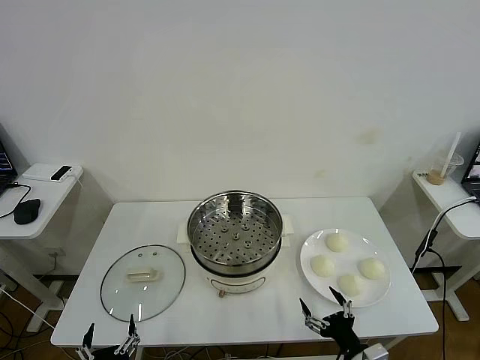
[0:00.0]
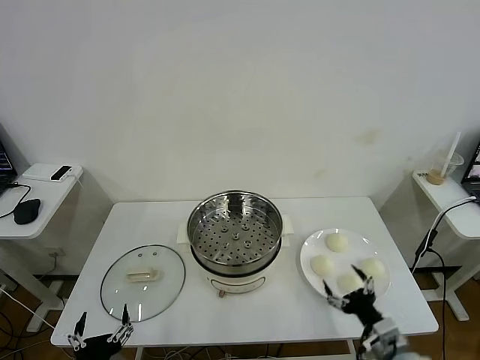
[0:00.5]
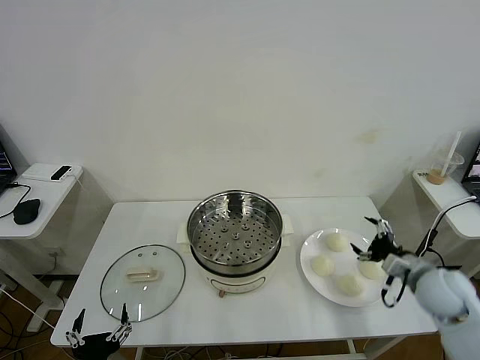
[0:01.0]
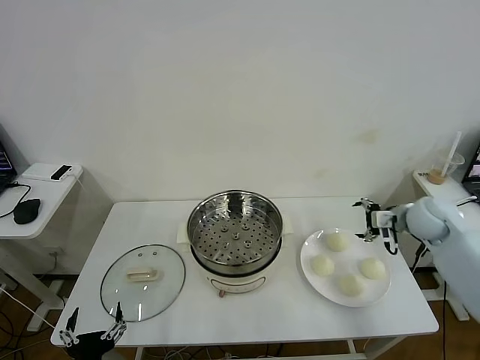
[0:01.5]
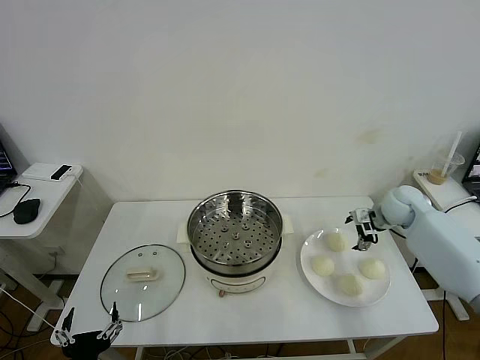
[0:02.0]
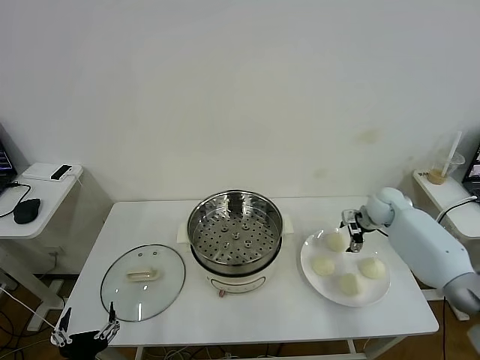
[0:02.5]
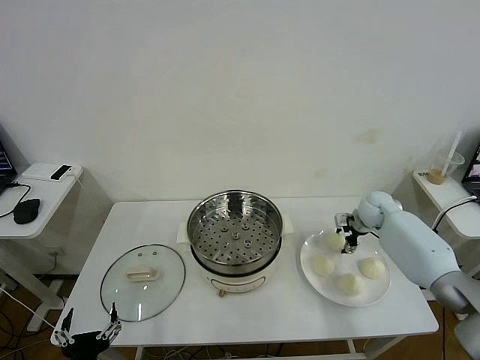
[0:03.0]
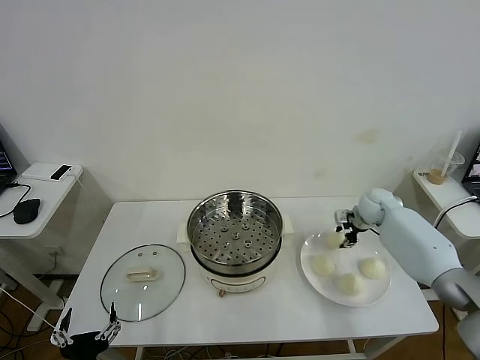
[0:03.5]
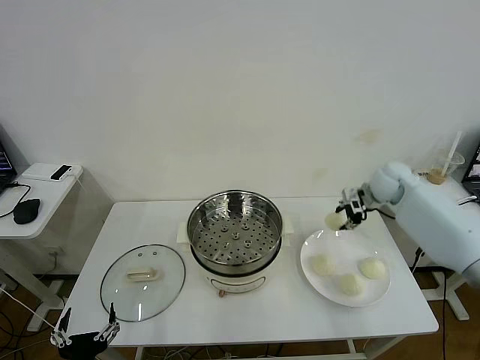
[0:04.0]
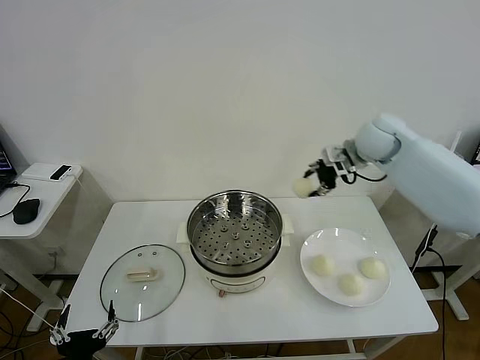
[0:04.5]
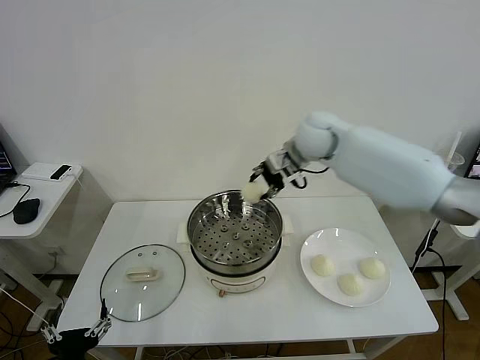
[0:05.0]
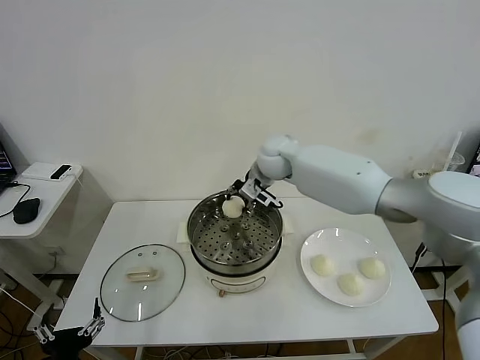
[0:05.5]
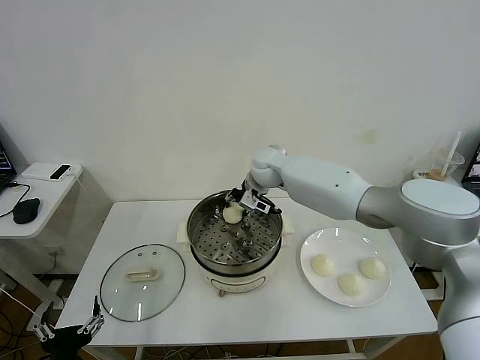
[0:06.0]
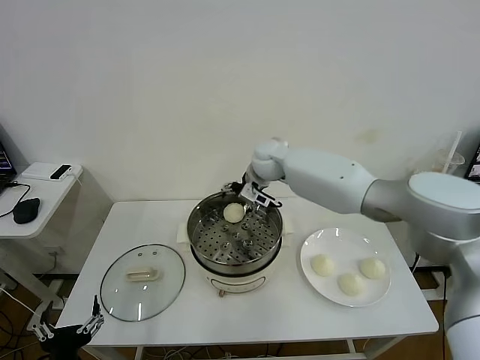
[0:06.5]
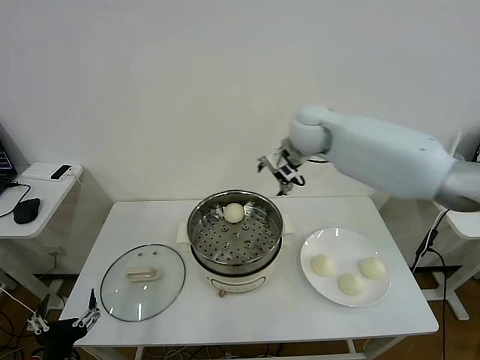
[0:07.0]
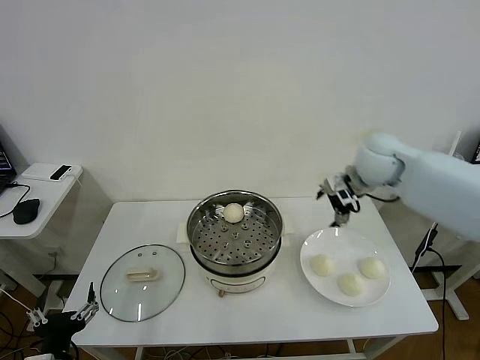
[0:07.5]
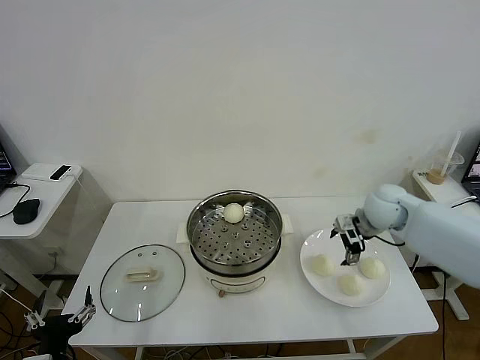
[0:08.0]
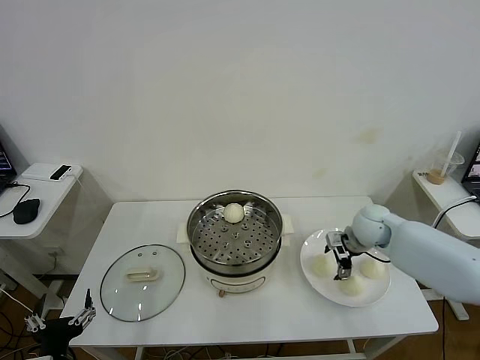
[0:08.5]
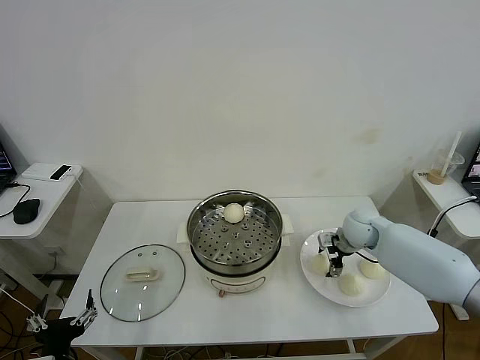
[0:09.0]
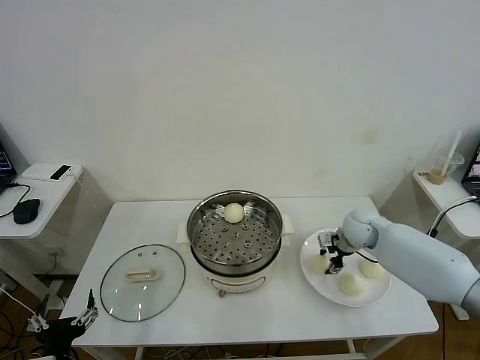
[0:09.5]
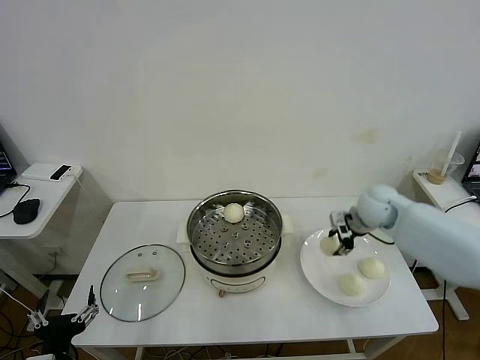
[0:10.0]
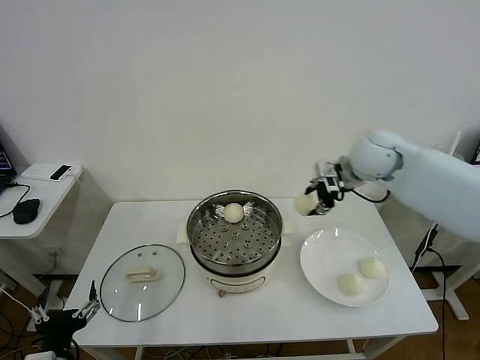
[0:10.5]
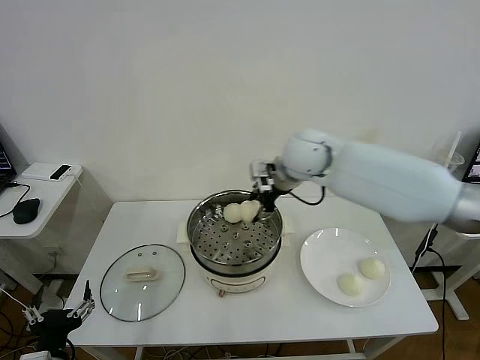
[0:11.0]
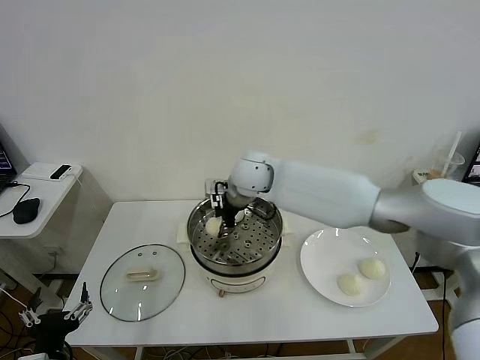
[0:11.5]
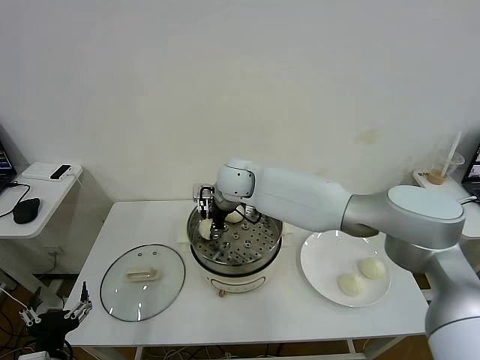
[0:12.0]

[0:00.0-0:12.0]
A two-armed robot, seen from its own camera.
Task of the whole recording: take steamed baozi put them in steamer then cover it.
Step, 0.0 to 3.0 s: Grasp the baozi in the plate with right gripper.
Step, 3.5 to 6.0 s: Place the baozi on the steamer with right gripper.
Step, 7.0 to 9.0 s: Grasp the baozi in the plate with right gripper.
2.0 to 4.0 s: The right gripper is displaced upward by roughly 10 cm, and closes up.
4.0 to 6.0 s: The right gripper heads to the left, covering some 30 cm.
6.0 to 8.0 s: The right gripper shifts roughly 30 cm to the right and backward, and opens.
8.0 to 10.0 s: The right gripper moves about 5 cm downward and comes back, and closes up.
10.0 to 12.0 s: The right gripper travels to the left by roughly 35 cm.

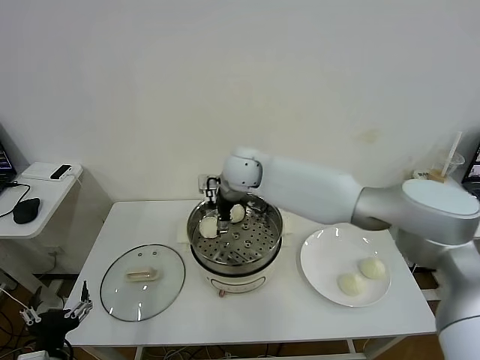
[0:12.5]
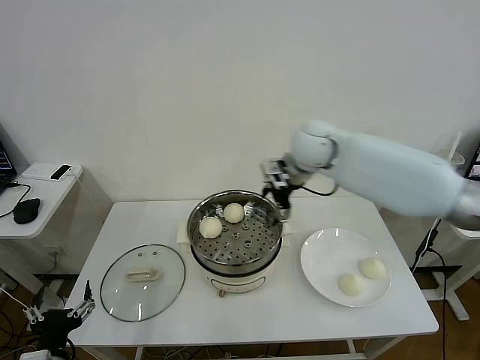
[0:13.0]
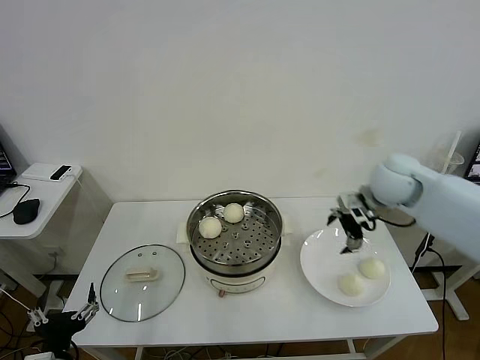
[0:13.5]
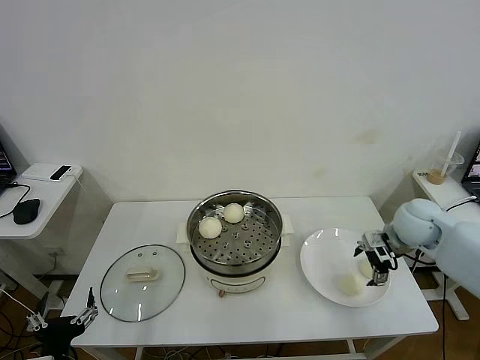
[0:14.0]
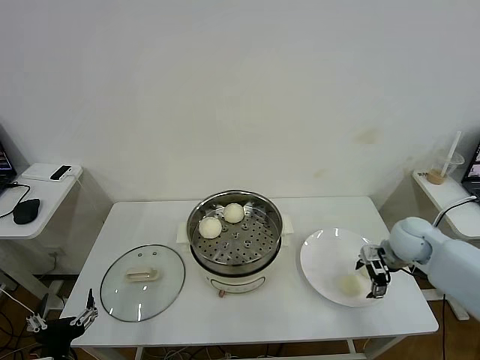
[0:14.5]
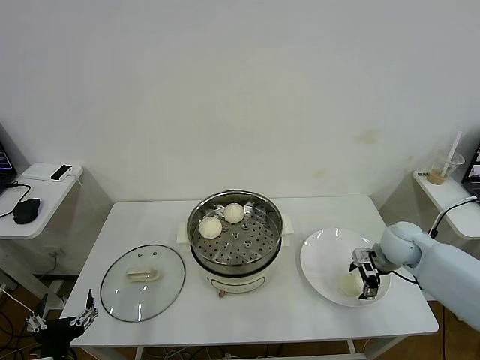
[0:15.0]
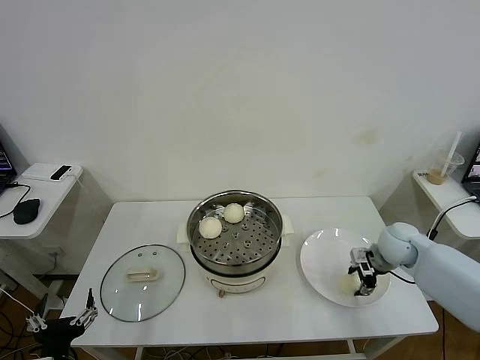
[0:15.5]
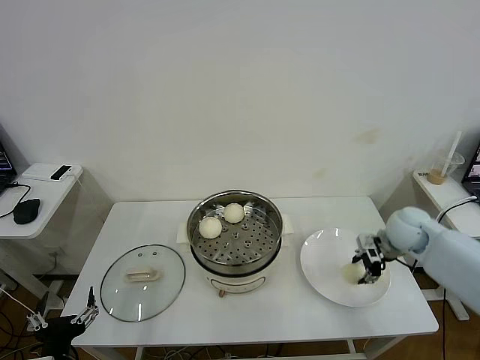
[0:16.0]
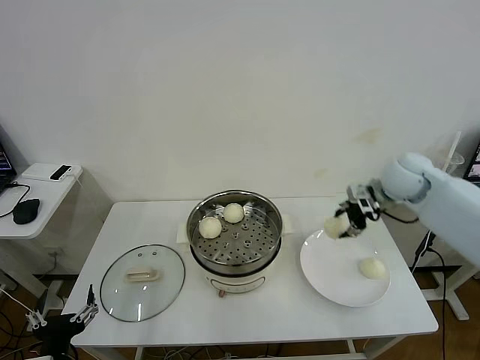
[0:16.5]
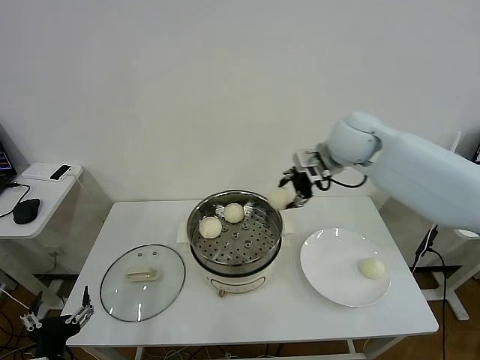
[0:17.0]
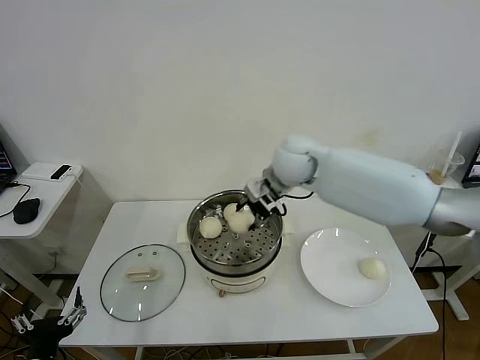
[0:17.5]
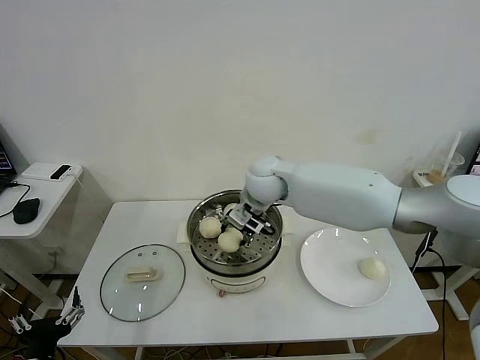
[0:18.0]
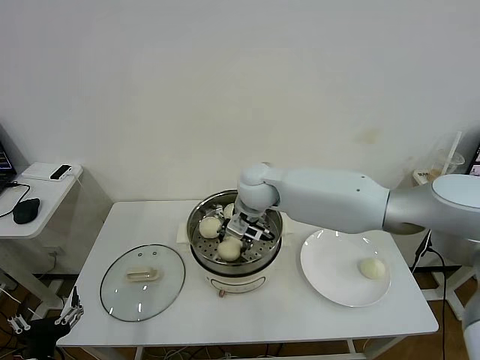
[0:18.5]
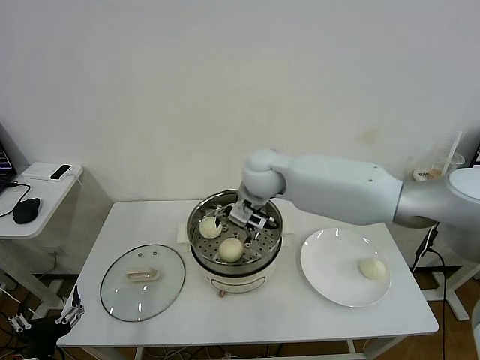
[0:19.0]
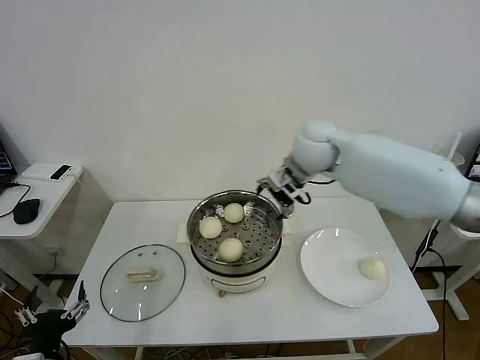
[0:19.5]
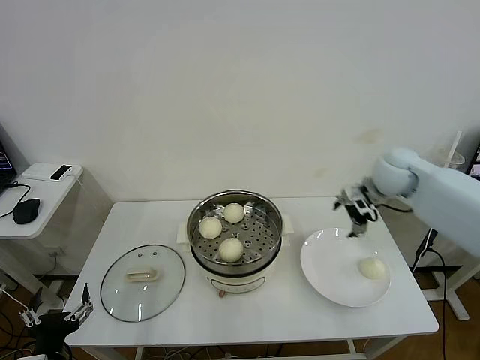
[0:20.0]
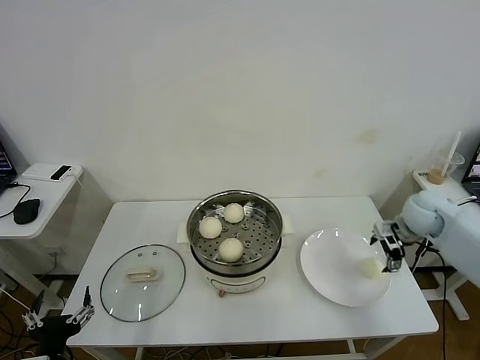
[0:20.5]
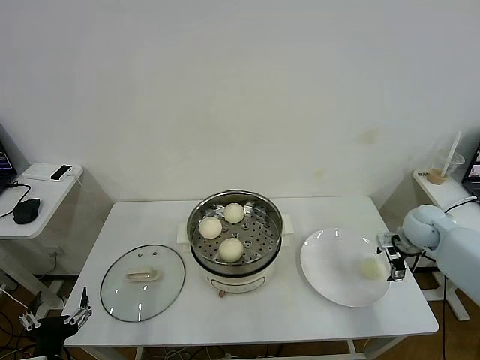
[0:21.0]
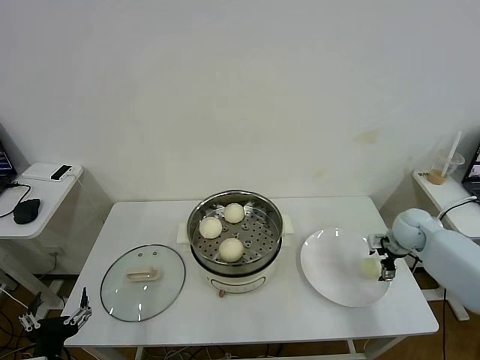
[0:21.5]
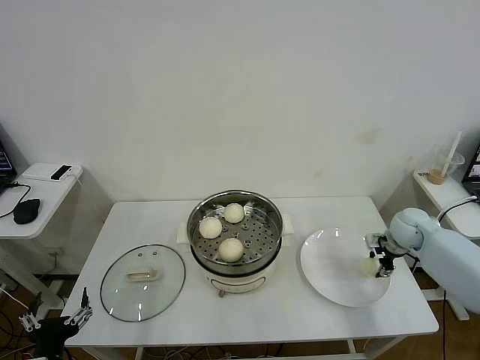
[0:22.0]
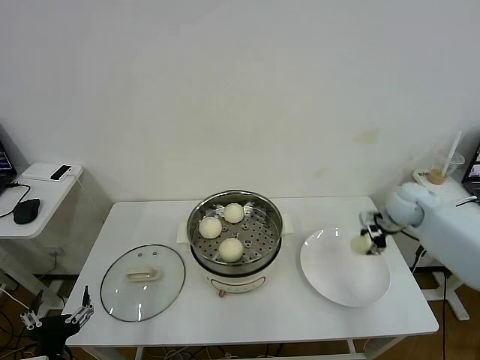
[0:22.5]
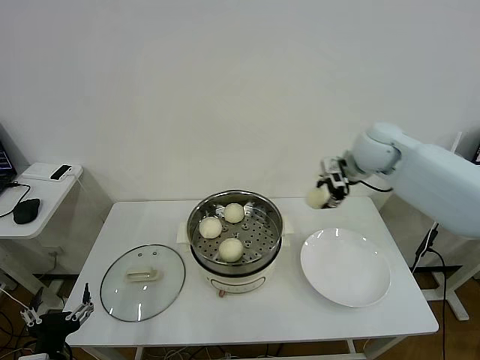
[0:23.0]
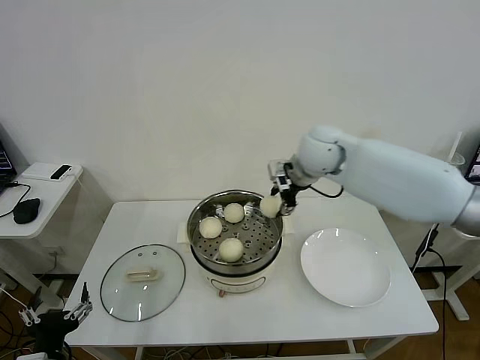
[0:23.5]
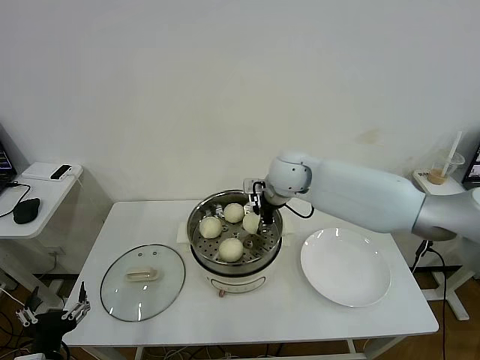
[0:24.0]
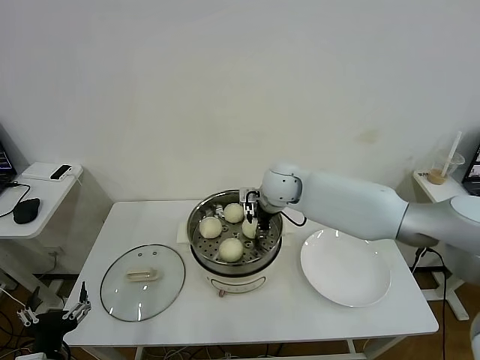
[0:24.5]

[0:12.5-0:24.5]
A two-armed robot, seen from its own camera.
Task of the whole recording: take steamed baozi put them in steamer then cover it.
Step, 13.0 to 15.5 s: Grasp the baozi in the plate with right gripper.
Step, 16.0 to 18.5 s: Place the baozi on the steamer with right gripper.
Step, 19.5 to 22.0 s: Grasp the baozi in the plate with right gripper.
12.5 to 14.5 s: The right gripper goes some 35 cm to the right.
14.5 to 16.5 s: The right gripper goes some 15 cm upward and forward, and closes.
16.5 to 18.5 s: The right gripper goes some 30 cm to the left.
18.5 to 20.5 s: The right gripper moves to the right, approximately 40 cm, and opens up.
20.5 to 22.5 s: The right gripper travels downward and back again, roughly 5 cm each way, and closes its fingers.
22.5 to 24.5 s: The right gripper goes approximately 30 cm to the left.

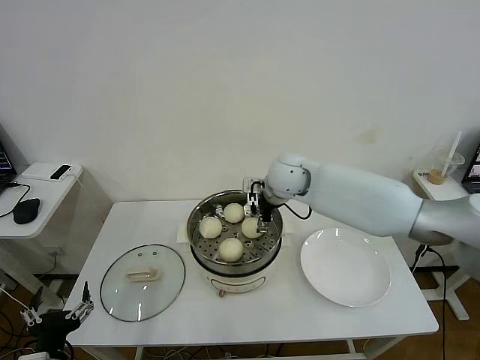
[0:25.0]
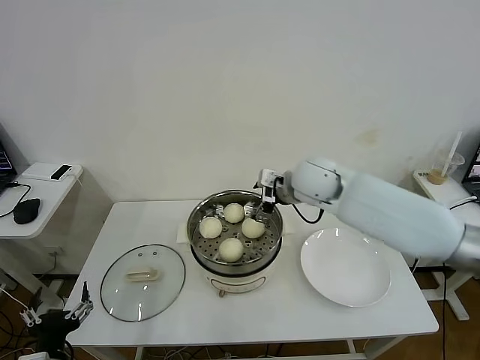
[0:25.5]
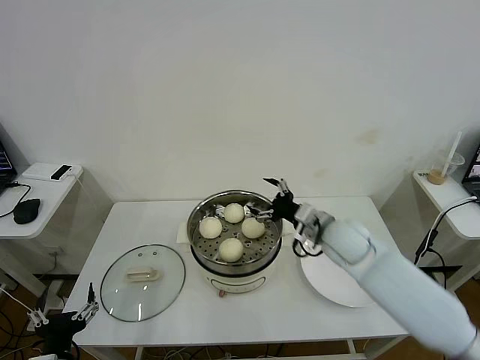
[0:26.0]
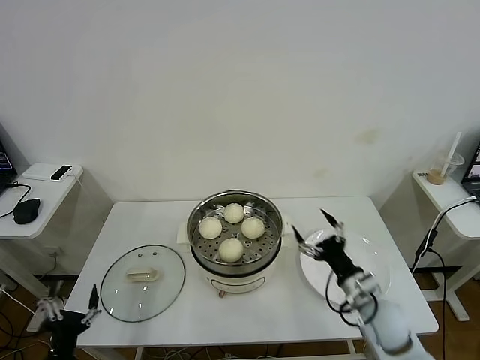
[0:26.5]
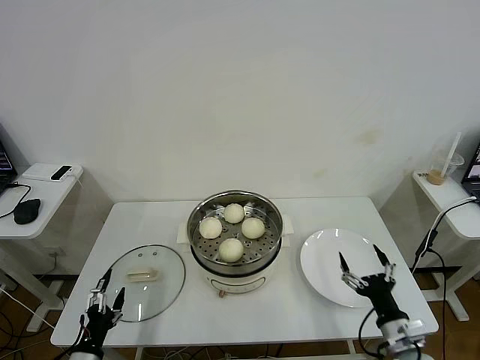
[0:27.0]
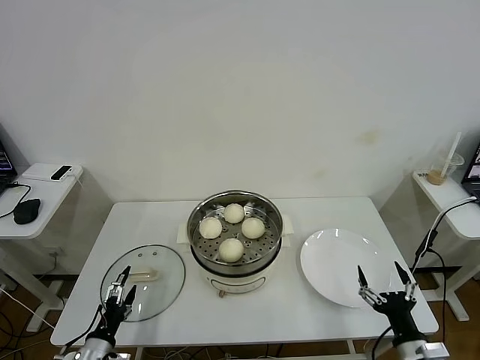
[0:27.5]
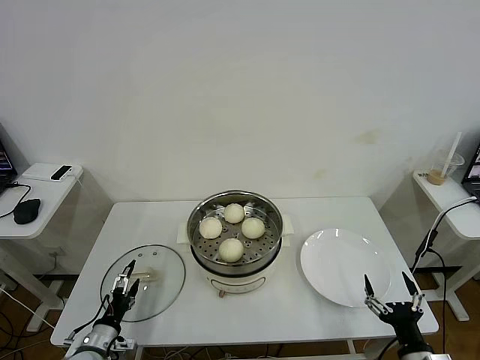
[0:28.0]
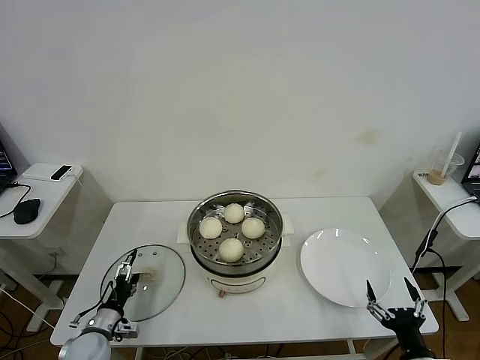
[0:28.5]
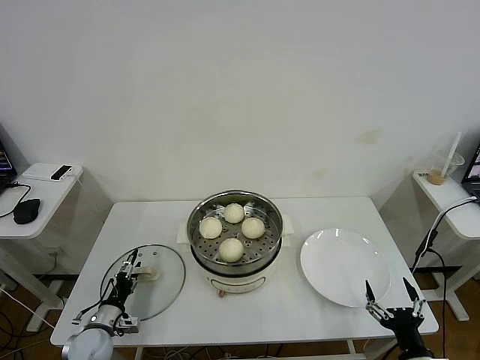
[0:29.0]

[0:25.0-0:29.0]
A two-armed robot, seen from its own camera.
Task of the whole recording: take steamed baozi put them in steamer then cover it.
25.0 to 27.0 s: The left gripper travels downward by roughly 10 cm; the right gripper moves backward, to the right and downward, roughly 50 cm.
27.0 to 29.0 s: The right gripper shifts some 5 cm backward. The left gripper moves forward and downward, about 15 cm.
